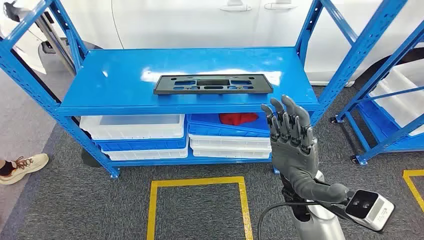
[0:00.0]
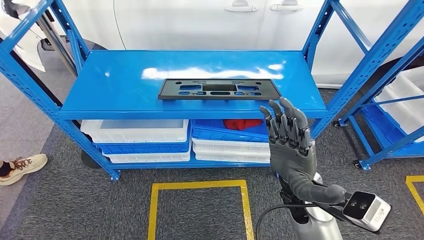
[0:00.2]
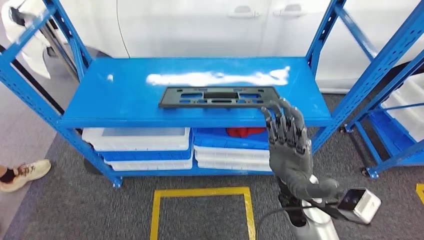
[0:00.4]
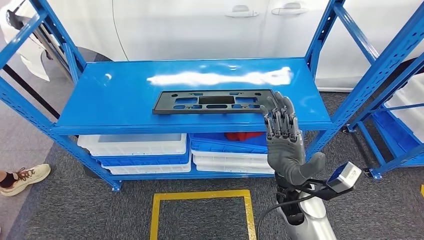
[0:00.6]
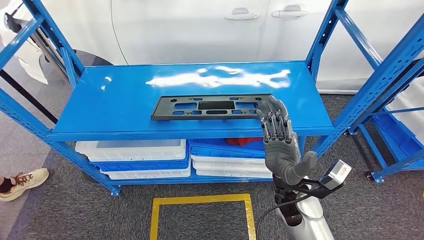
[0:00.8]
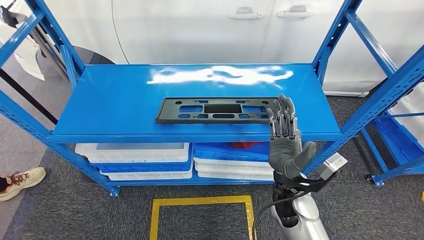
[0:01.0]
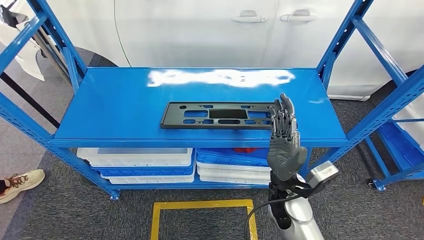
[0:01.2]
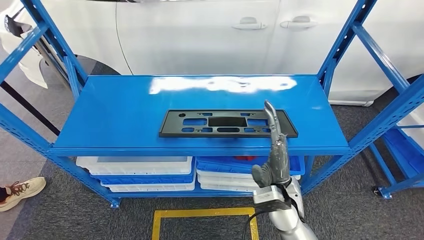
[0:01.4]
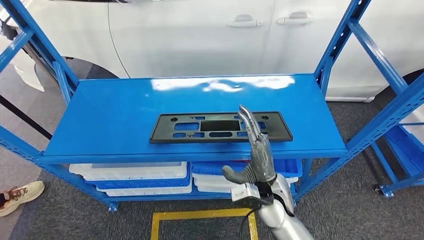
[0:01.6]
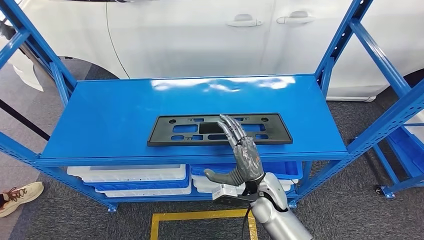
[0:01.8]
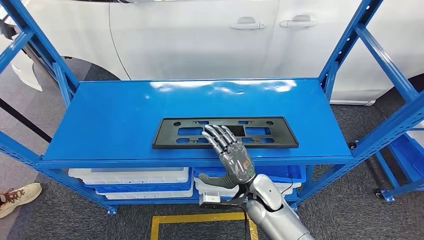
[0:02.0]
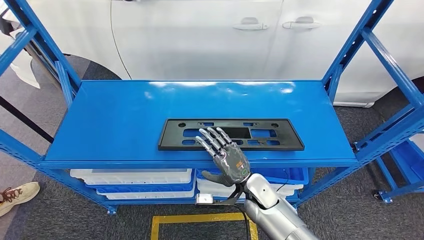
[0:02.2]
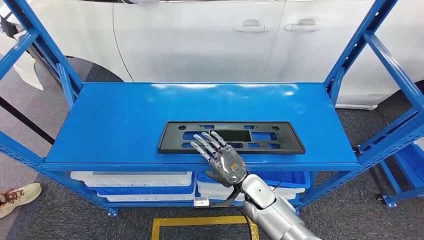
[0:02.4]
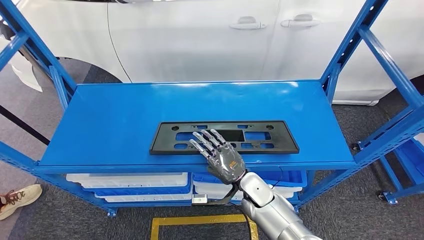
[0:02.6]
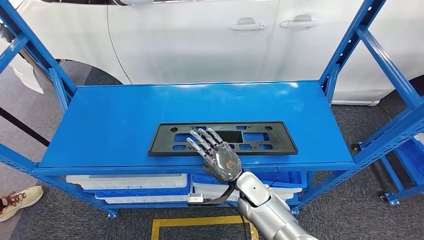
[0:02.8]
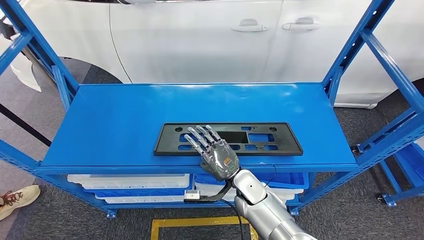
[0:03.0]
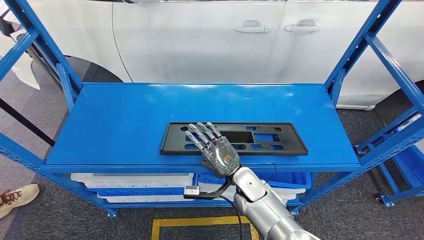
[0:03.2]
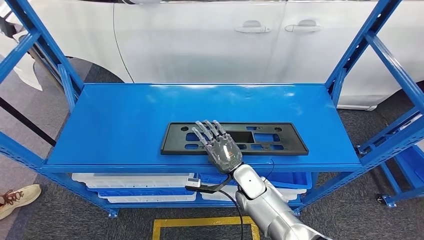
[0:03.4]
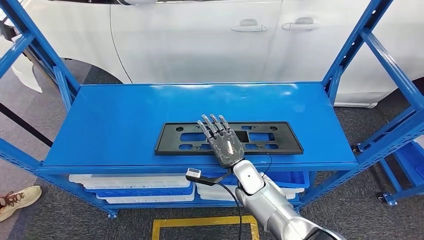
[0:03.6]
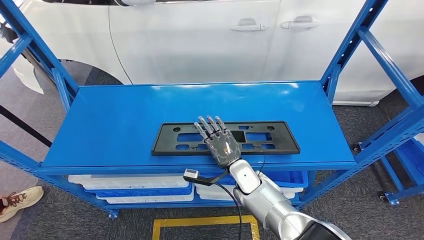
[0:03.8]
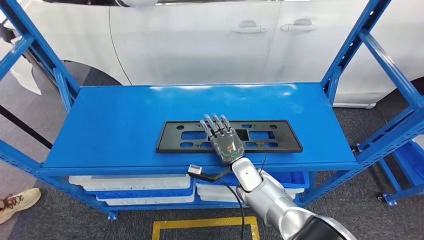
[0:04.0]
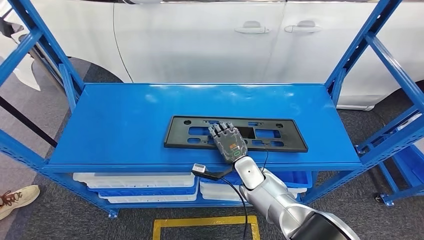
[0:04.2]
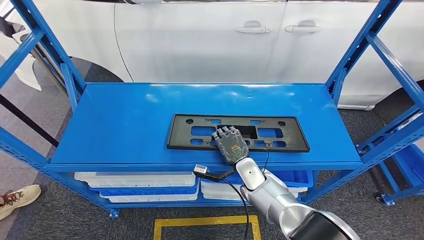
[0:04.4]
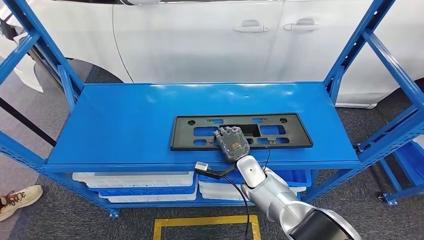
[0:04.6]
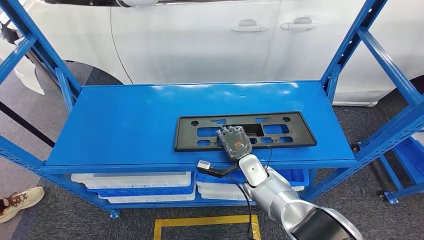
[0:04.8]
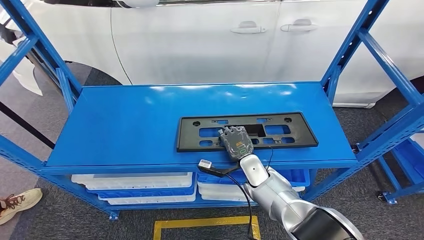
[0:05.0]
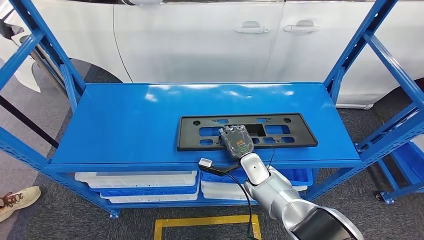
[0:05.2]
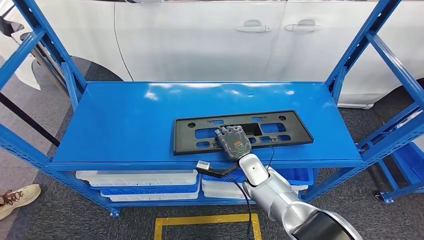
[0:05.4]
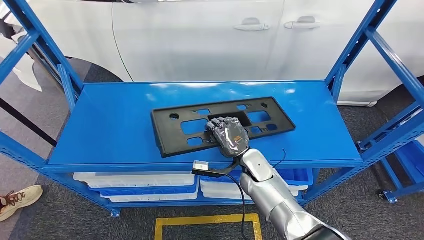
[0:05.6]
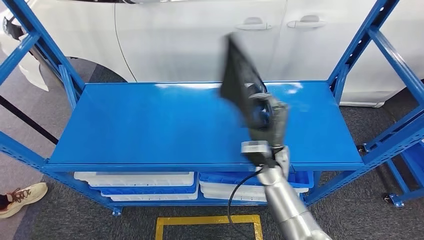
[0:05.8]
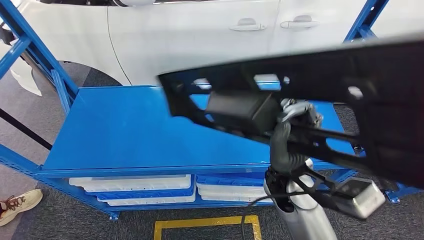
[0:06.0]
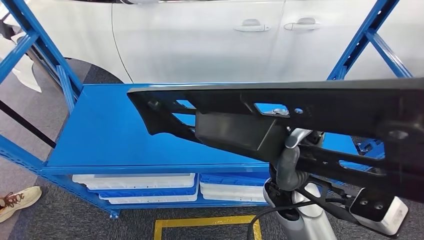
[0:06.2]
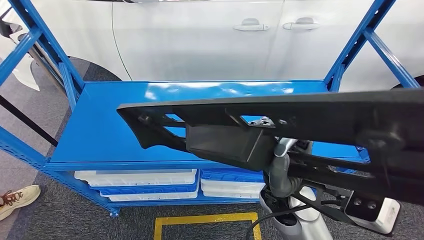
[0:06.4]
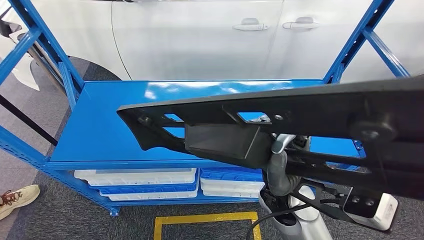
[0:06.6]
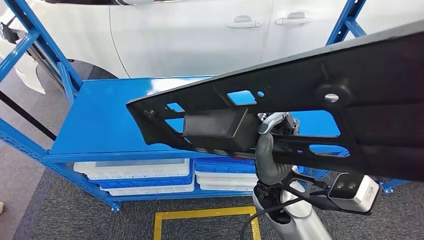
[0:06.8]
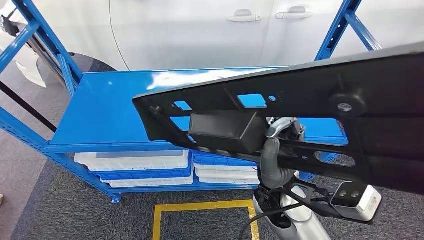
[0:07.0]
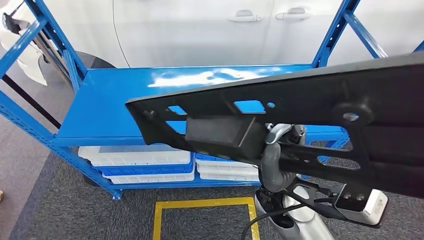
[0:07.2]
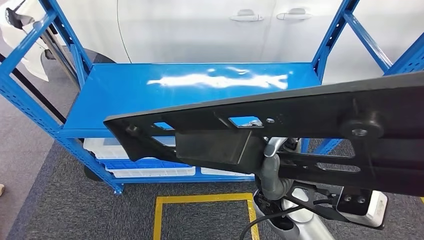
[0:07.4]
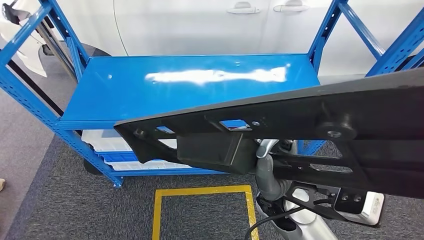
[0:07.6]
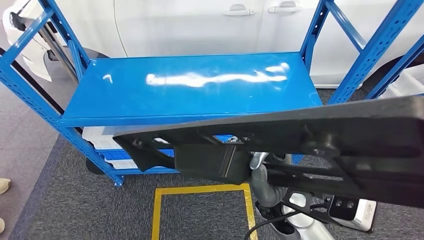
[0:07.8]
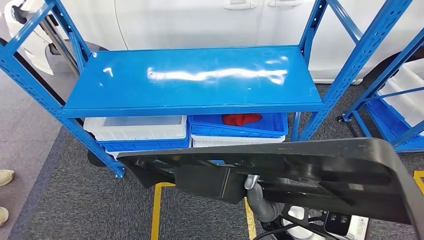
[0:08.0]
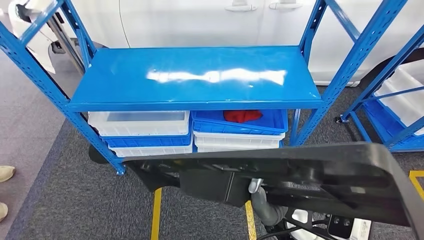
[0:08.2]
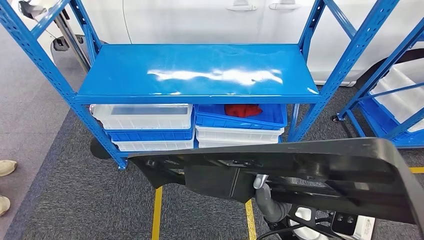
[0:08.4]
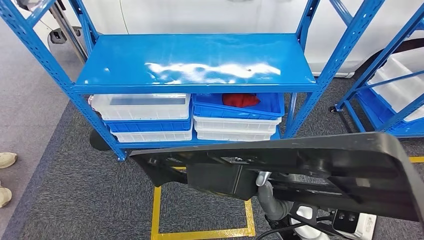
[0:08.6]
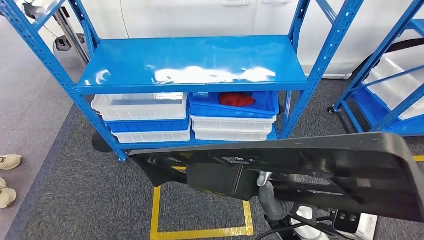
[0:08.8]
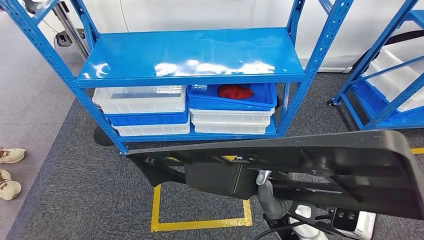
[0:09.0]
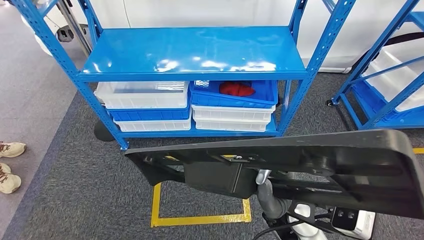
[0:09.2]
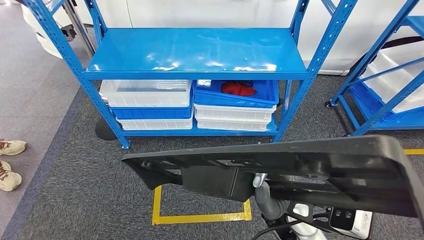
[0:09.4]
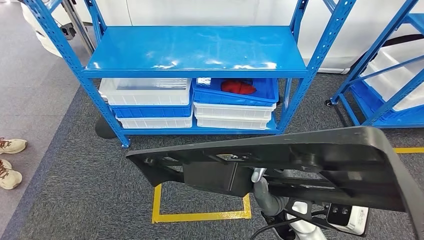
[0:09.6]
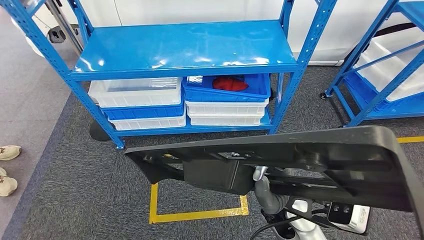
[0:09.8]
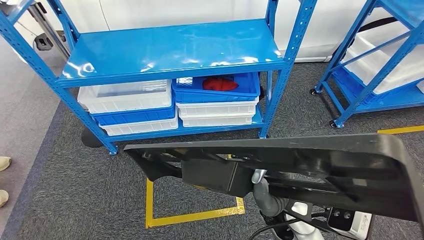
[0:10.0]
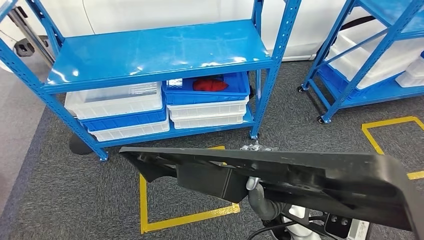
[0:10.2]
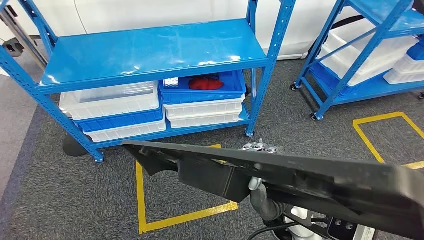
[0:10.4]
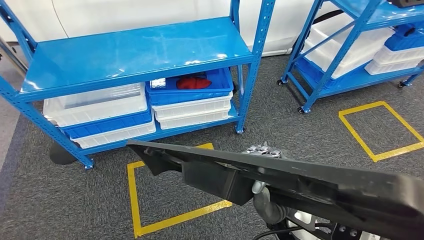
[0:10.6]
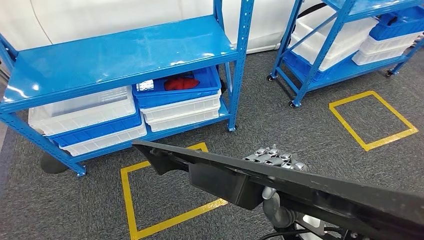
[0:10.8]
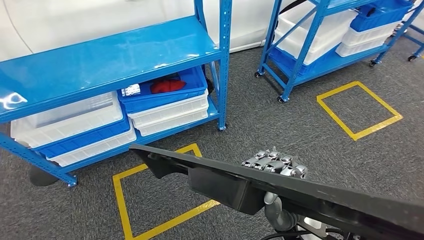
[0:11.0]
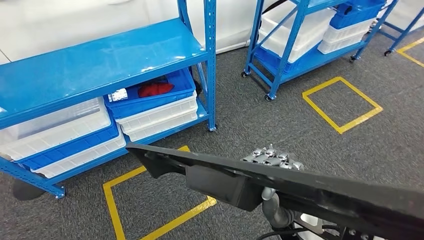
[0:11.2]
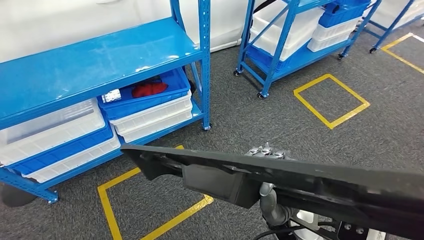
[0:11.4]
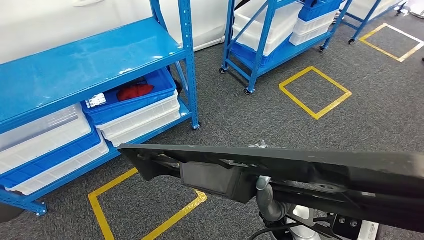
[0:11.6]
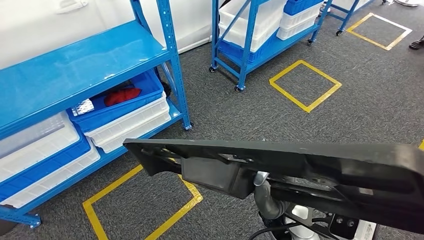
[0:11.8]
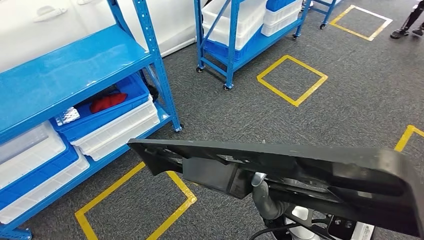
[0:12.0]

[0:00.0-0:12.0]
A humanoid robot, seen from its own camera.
Step, 0:00.0 to 0:06.4: Pick up the large material from the shelf.

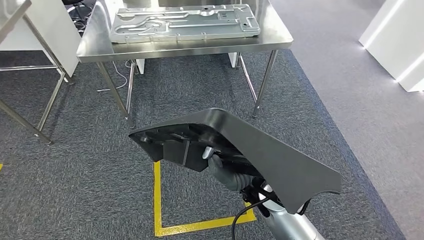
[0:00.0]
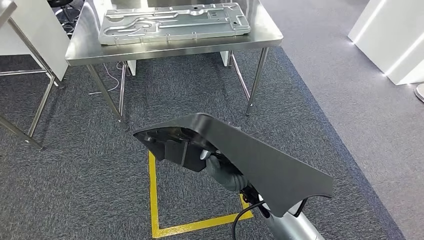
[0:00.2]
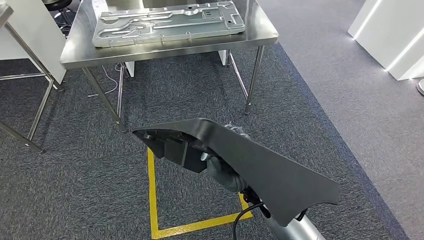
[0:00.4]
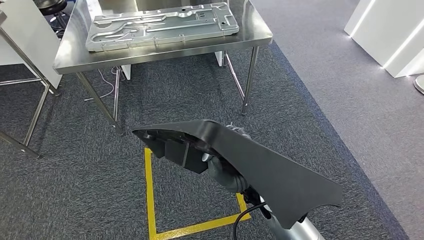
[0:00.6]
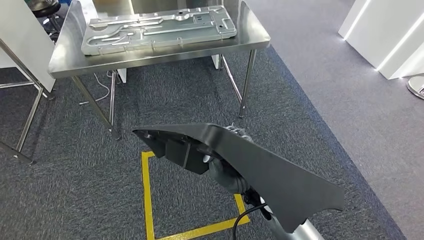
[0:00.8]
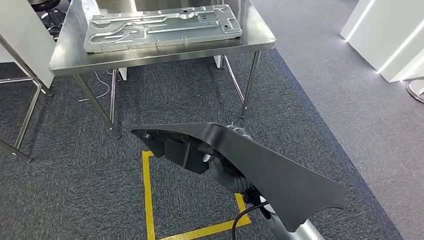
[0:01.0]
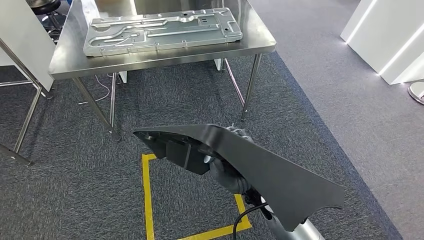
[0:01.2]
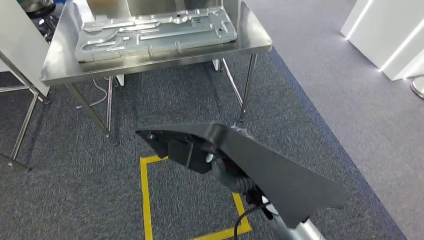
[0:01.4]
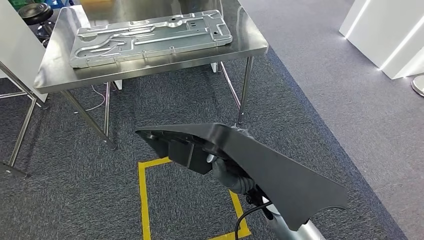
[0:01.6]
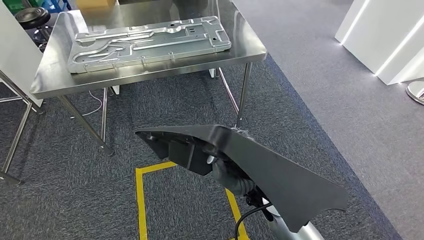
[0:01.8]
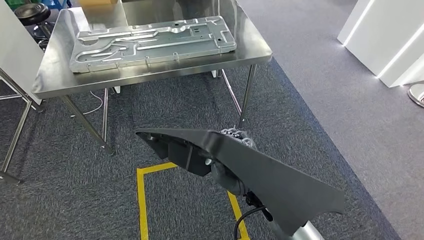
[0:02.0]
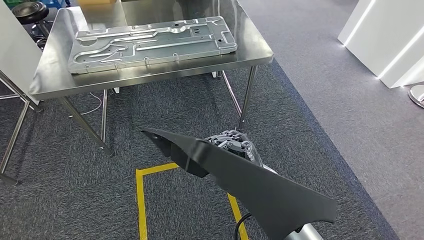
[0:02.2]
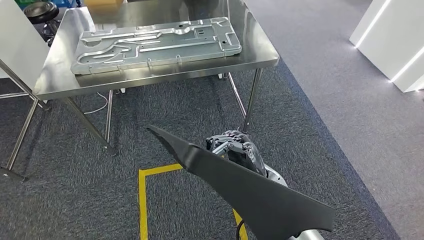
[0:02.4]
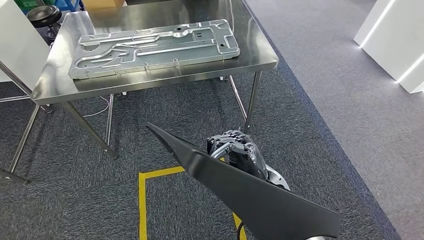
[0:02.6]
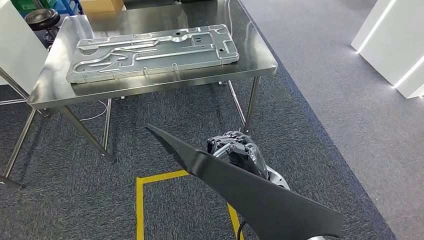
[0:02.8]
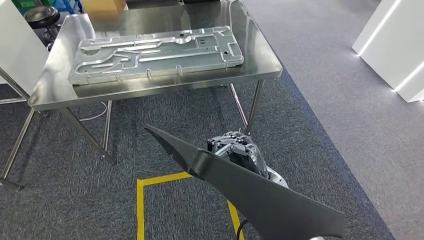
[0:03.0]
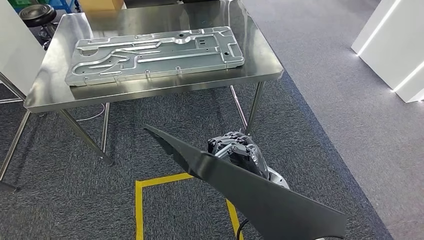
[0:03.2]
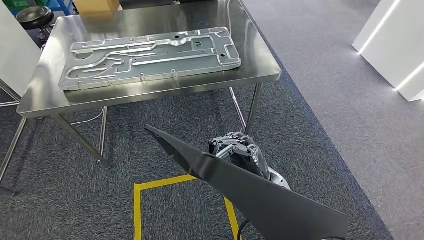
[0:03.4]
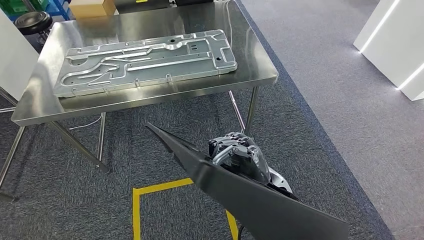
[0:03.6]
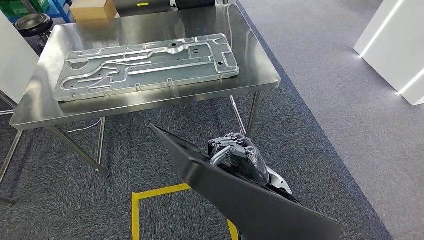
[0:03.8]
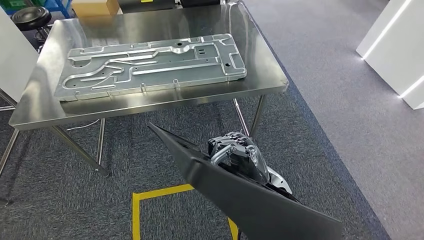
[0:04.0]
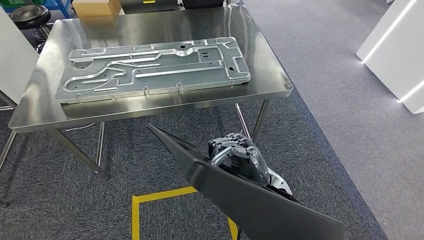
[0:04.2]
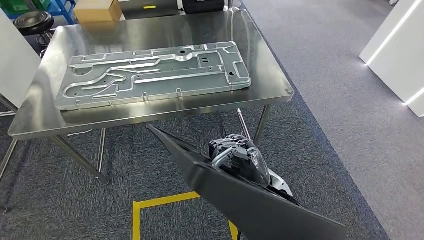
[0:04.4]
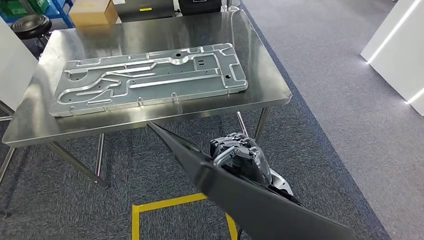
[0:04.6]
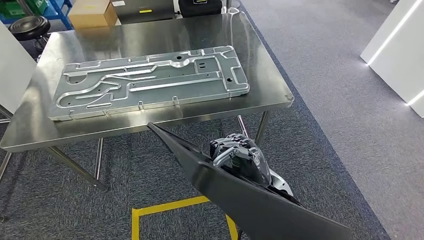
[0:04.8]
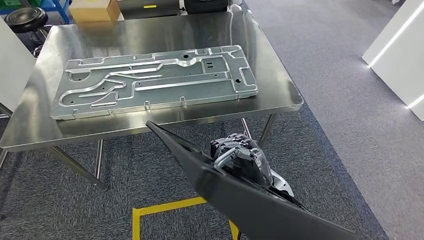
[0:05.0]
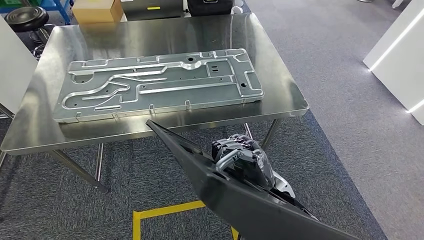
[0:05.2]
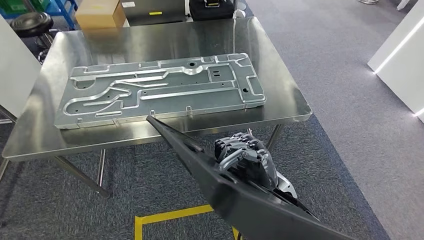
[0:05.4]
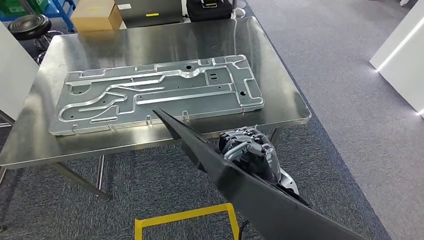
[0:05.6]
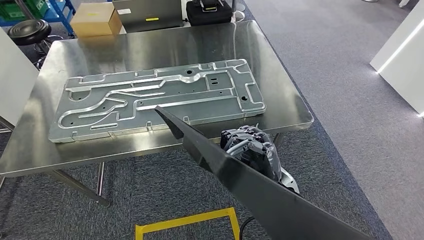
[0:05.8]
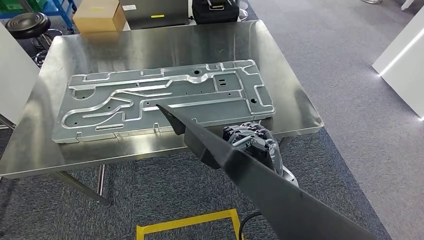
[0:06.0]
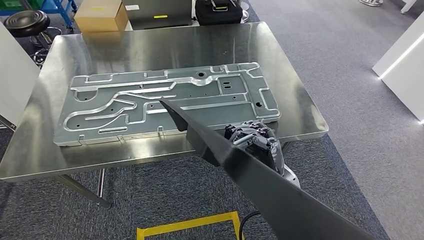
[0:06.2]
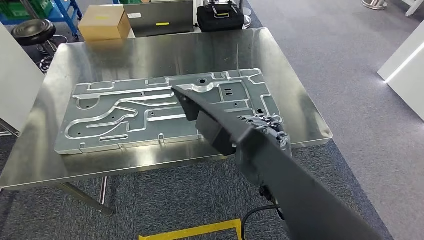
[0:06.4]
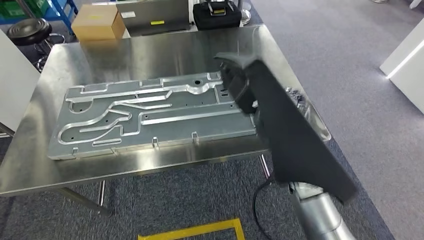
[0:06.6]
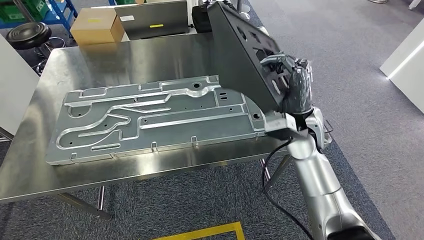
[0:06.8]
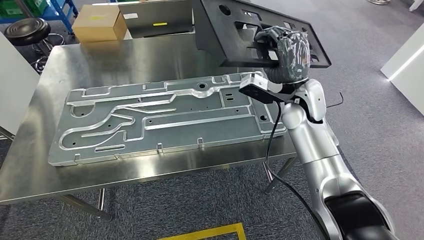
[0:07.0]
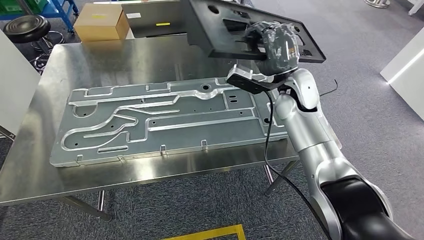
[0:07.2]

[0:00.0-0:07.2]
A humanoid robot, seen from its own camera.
Step, 0:00.0 to 0:05.6: Move the large material to the workbench.
